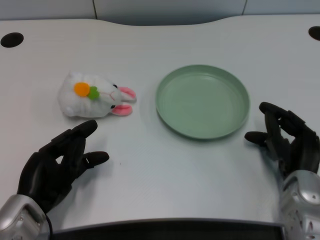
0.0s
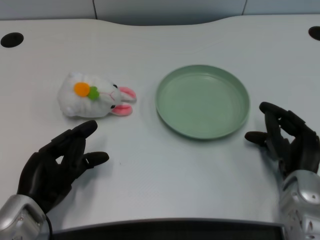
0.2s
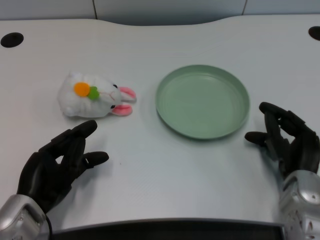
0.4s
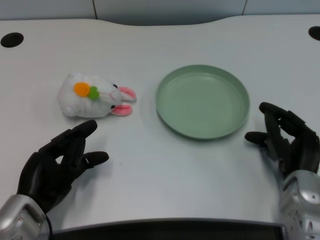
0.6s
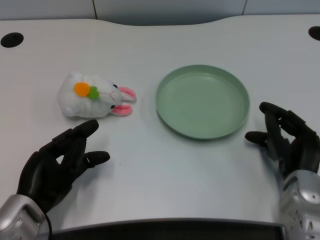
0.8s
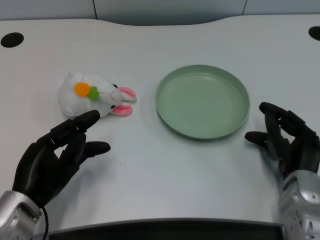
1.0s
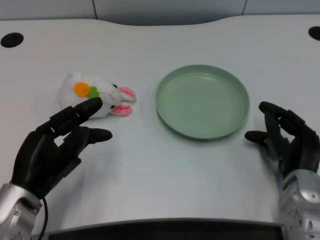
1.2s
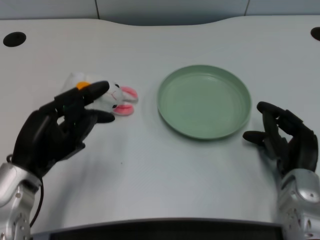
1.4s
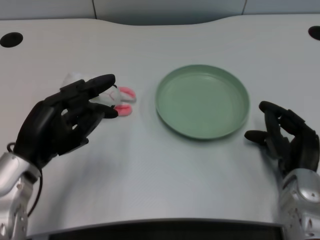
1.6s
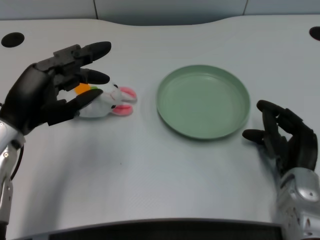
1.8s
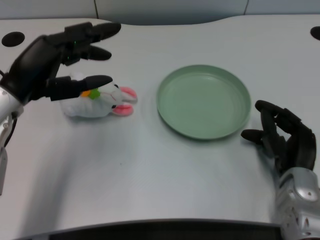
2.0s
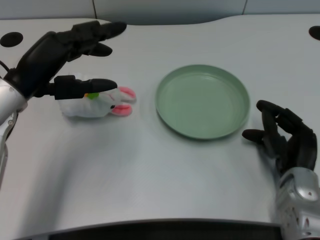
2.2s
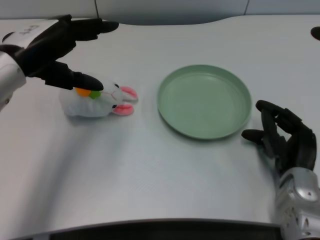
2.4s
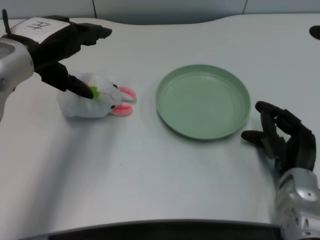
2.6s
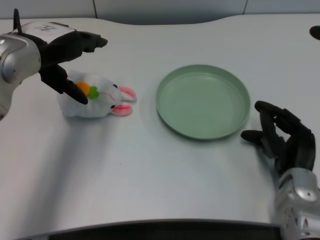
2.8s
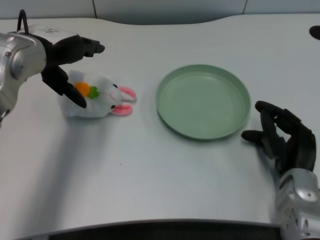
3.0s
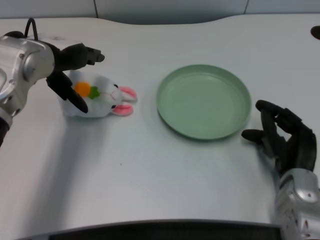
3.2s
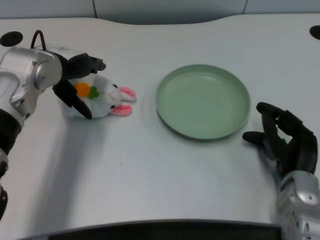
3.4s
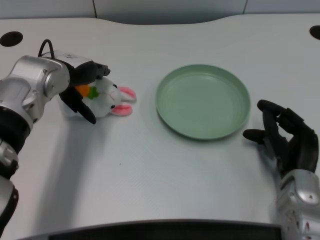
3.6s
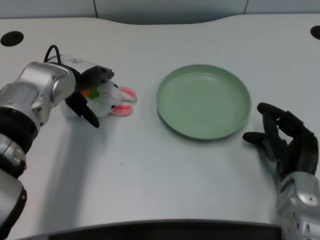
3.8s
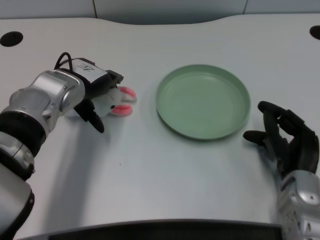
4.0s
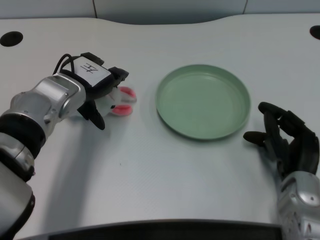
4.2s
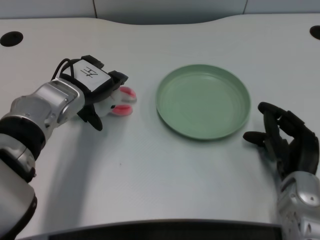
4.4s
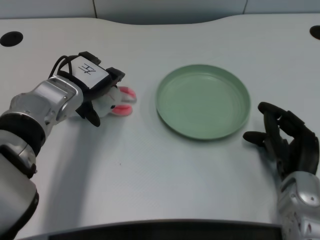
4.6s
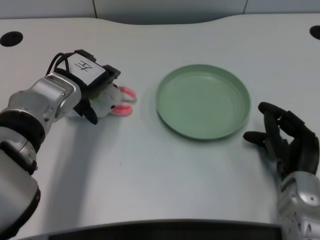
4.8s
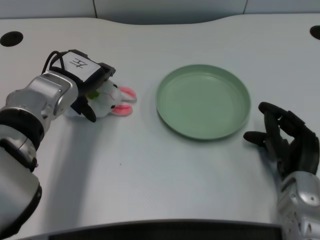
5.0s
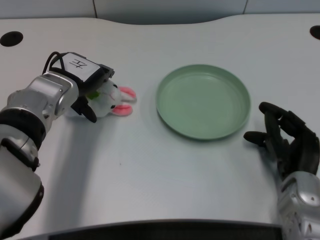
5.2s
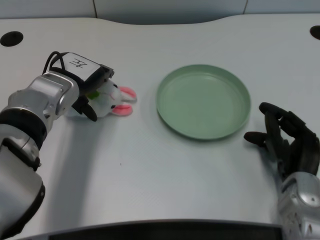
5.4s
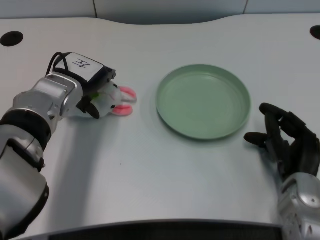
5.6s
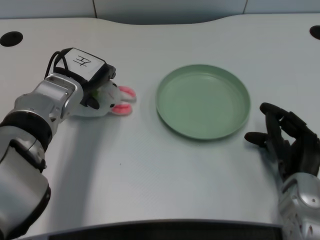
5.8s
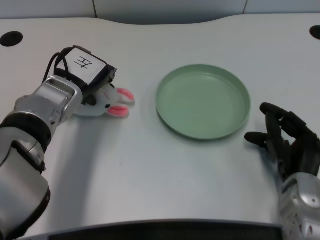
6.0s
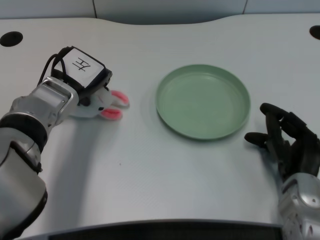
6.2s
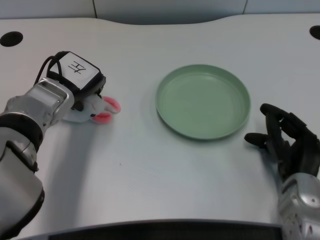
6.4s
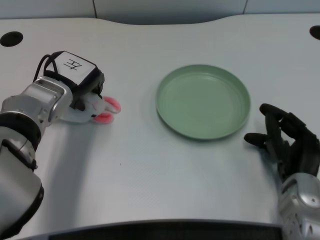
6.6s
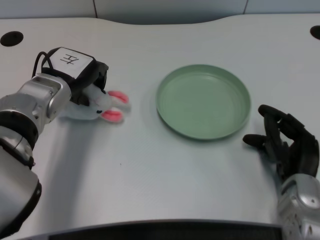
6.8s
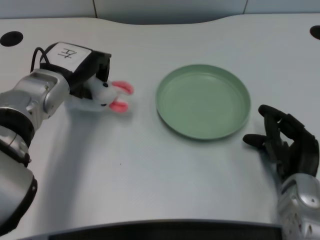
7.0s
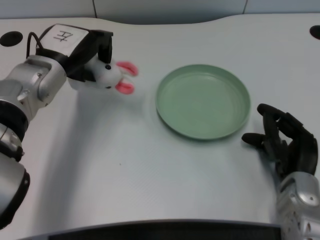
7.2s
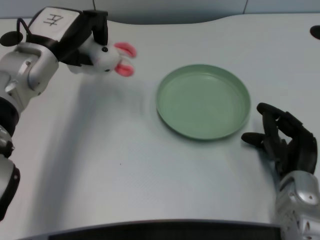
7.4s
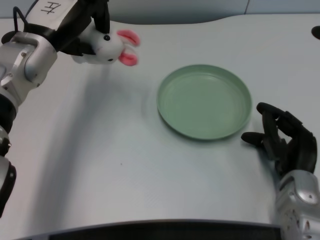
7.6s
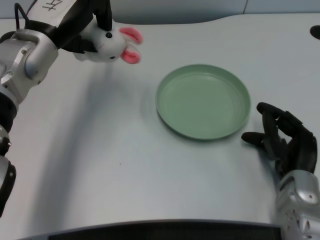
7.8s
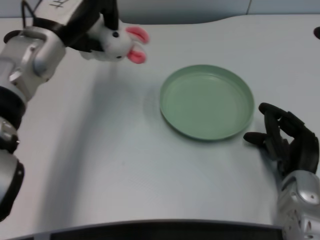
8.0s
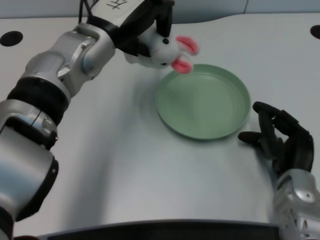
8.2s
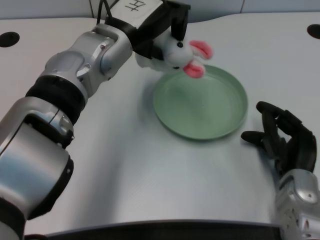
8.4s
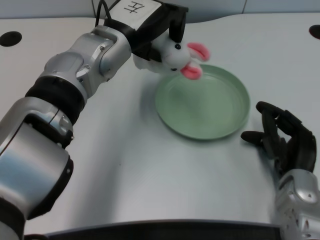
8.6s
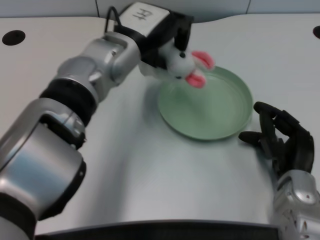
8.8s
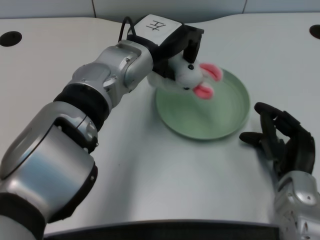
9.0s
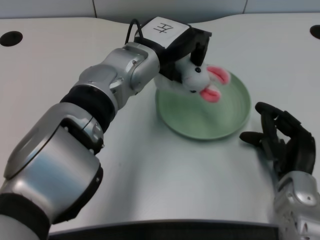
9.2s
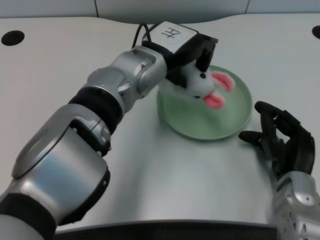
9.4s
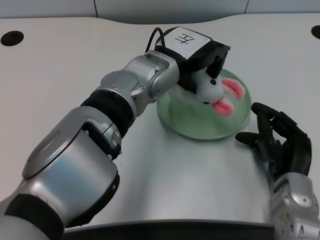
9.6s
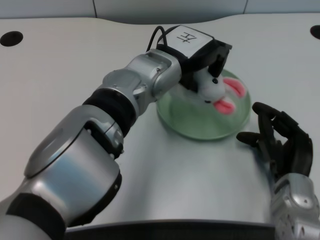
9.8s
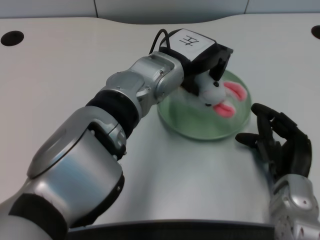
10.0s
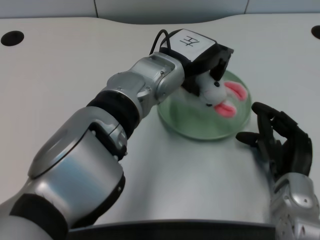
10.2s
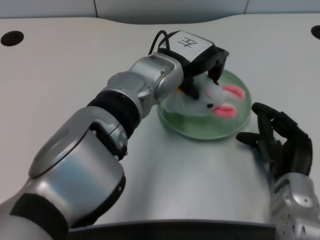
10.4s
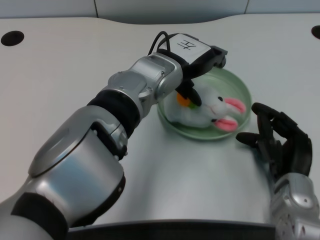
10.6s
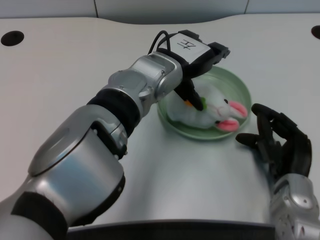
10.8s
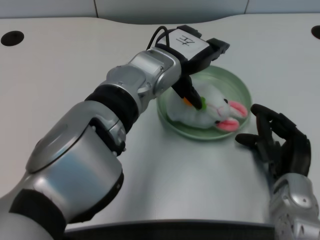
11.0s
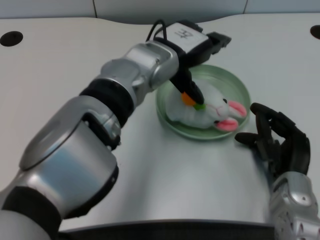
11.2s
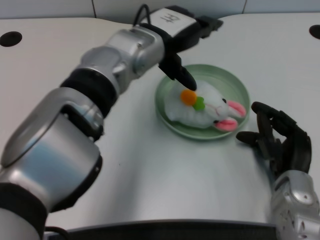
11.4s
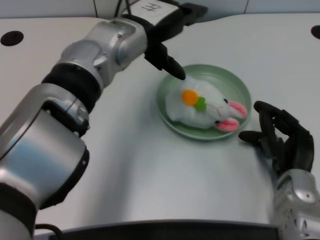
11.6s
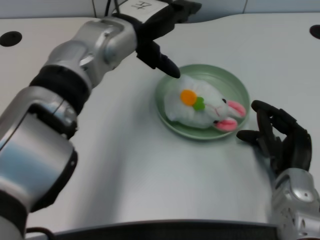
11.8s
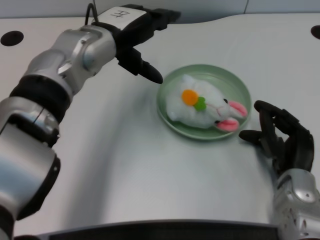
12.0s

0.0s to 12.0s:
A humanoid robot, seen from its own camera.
Task of the whole recording: pick up the rabbit doll from the table and place it on the plate.
Step, 1.0s to 7.0s: Grasp the rabbit doll with the left gripper.
Step, 7.2s to 10.6s: Place the rabbit doll into the plate with the left gripper.
1.6s to 3.0s: The left hand heads upward and forward, covering roughly 15 cm.
3.0s to 4.4s: The left hand shifts about 10 cm downward.
4.4s to 6.0s: The hands stay close to where they were, moving slightly.
6.0s to 7.6s: The left hand goes approximately 5 cm upward.
7.6s to 9.0s: The left hand travels to the right by some 15 cm.
10.4s to 12.0s: The left hand is displaced to the left by roughly 10 cm.

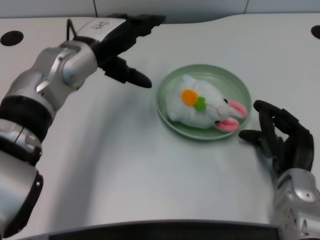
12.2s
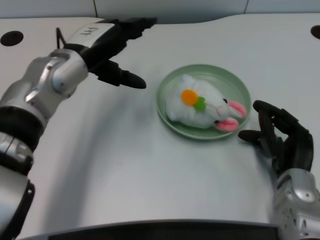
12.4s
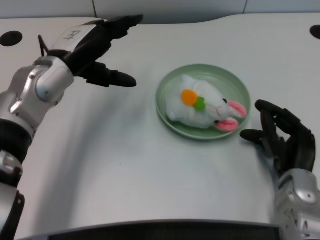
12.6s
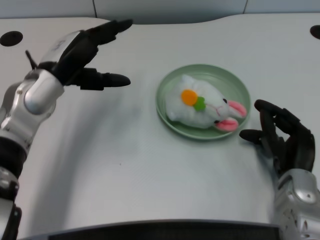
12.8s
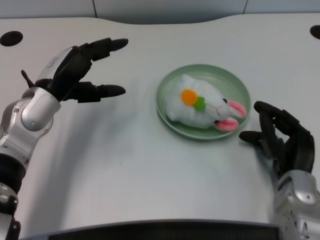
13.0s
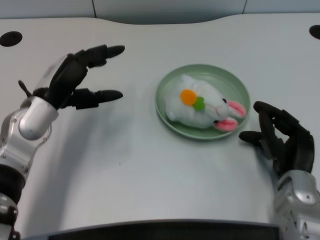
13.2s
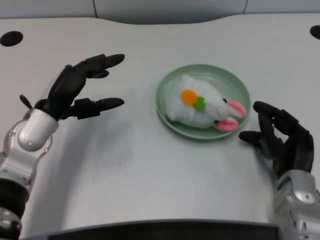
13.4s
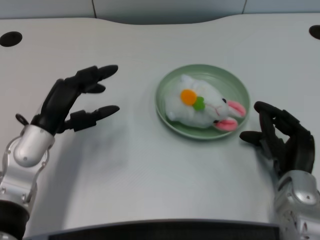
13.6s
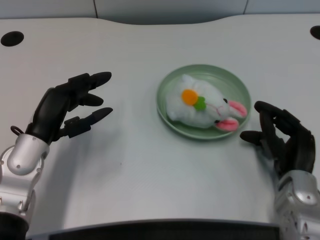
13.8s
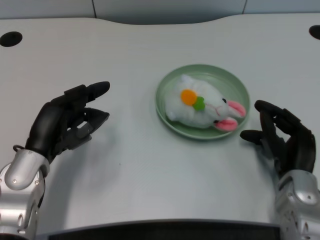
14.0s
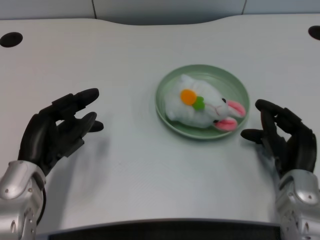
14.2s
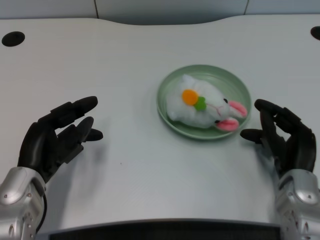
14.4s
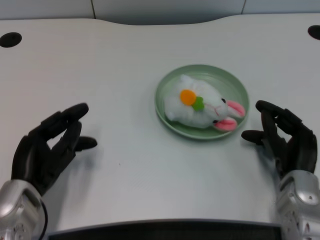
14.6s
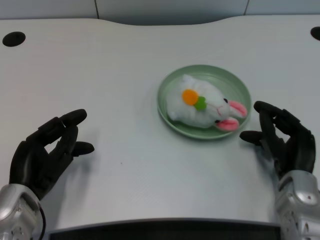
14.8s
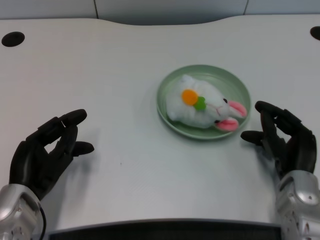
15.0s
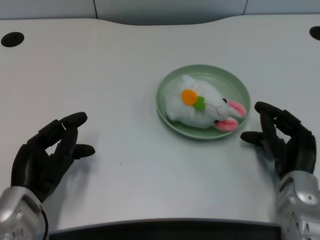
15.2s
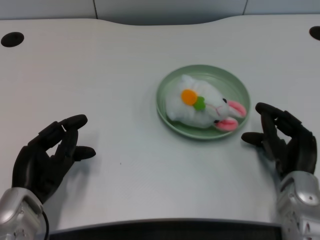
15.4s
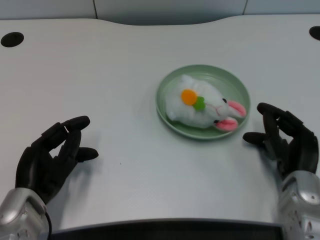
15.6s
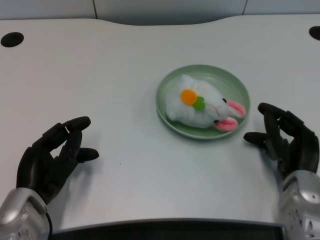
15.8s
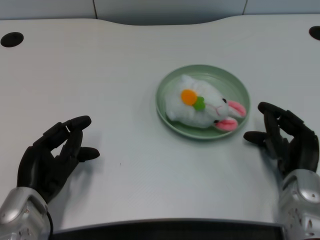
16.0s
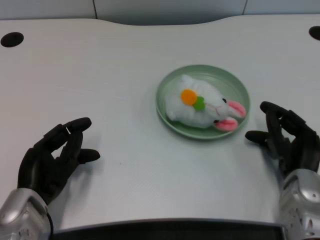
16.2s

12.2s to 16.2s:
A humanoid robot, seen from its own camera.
Task of the whole recording: pick up the rabbit doll from the table and place it on the plate.
12.2s to 13.6s: The left hand goes approximately 15 cm downward, backward and to the left.
13.6s to 14.8s: The left hand heads backward, covering about 5 cm.
14.8s to 16.2s: The two hands keep their place.

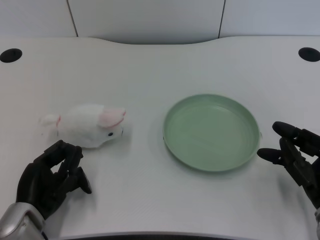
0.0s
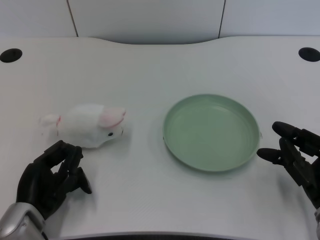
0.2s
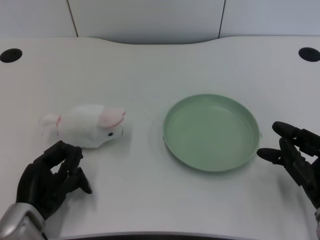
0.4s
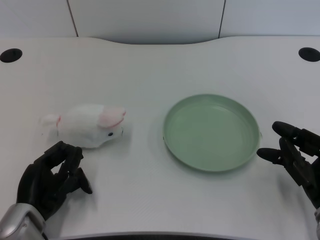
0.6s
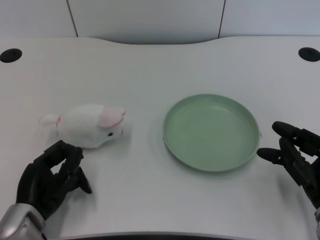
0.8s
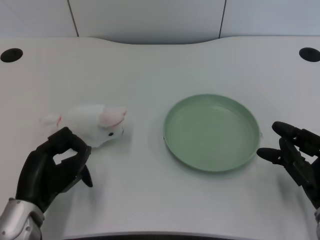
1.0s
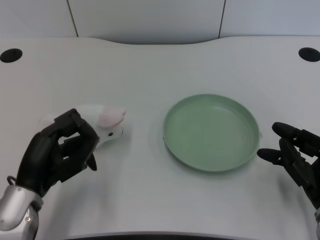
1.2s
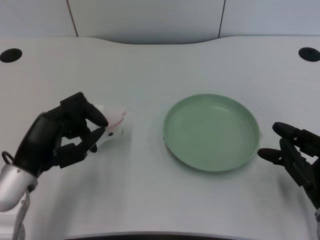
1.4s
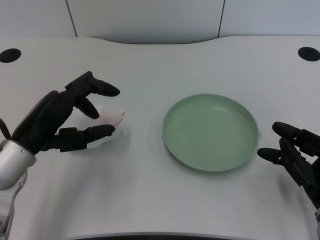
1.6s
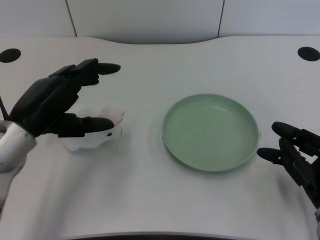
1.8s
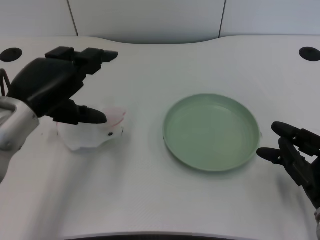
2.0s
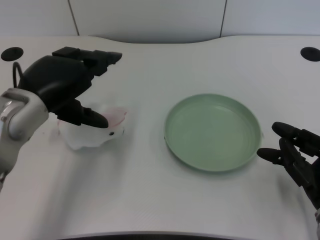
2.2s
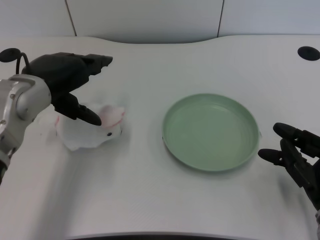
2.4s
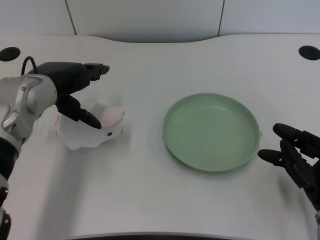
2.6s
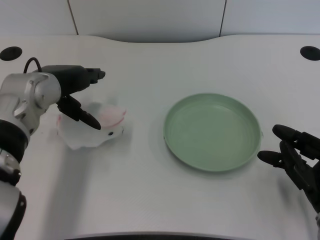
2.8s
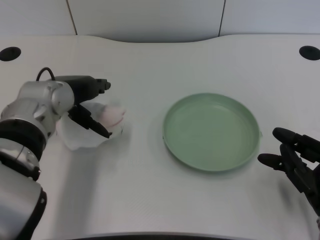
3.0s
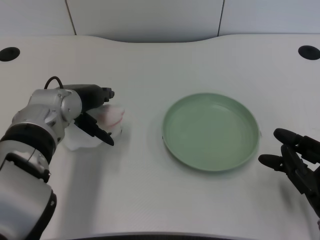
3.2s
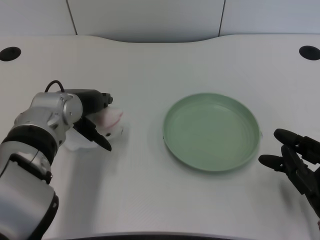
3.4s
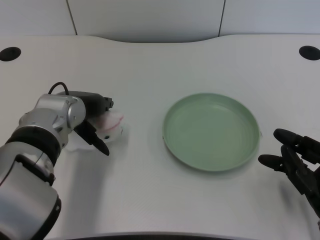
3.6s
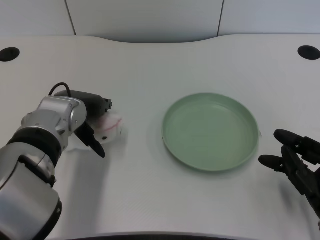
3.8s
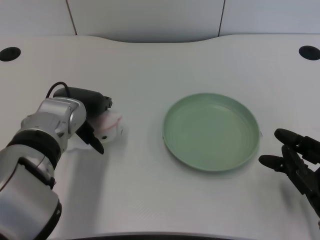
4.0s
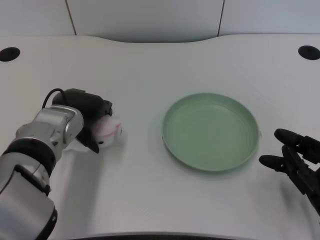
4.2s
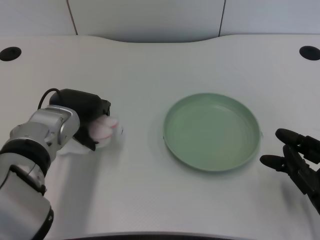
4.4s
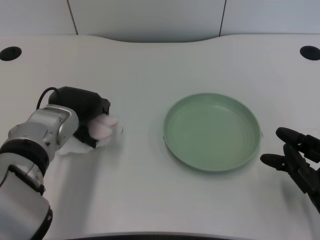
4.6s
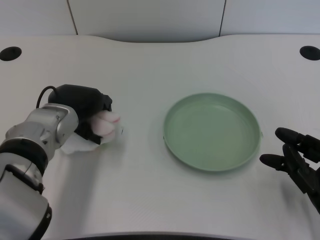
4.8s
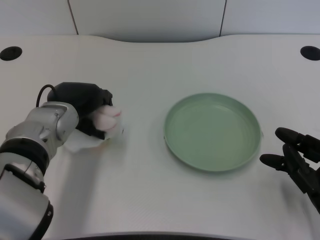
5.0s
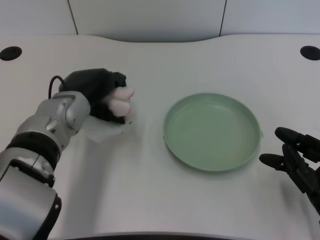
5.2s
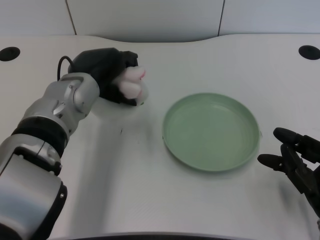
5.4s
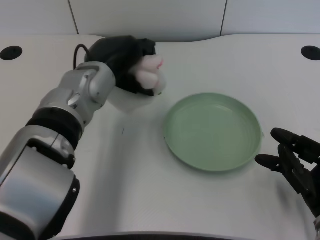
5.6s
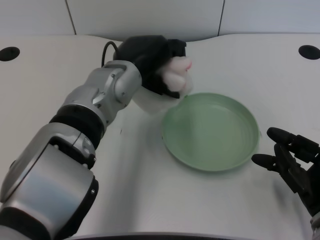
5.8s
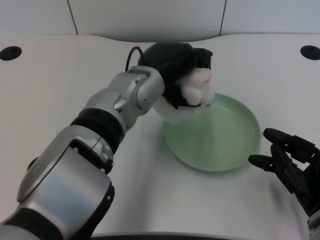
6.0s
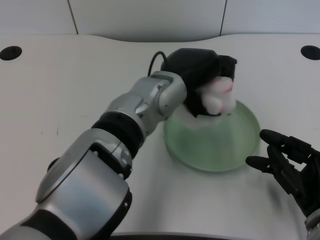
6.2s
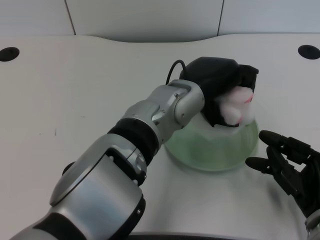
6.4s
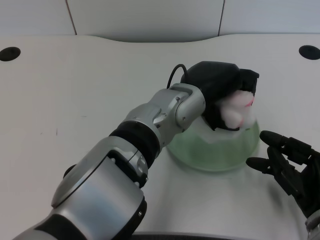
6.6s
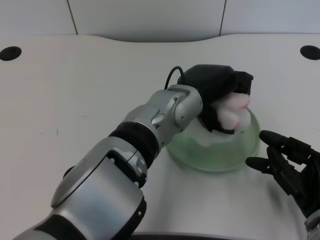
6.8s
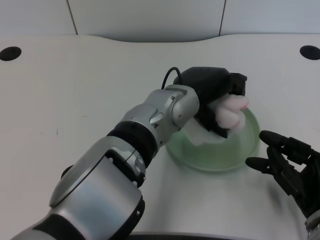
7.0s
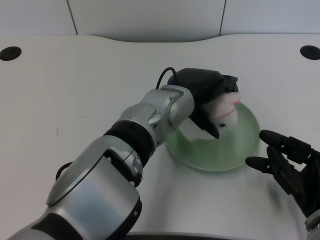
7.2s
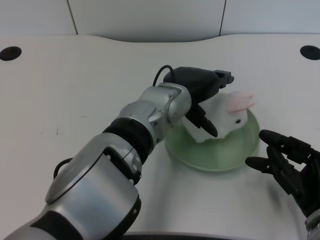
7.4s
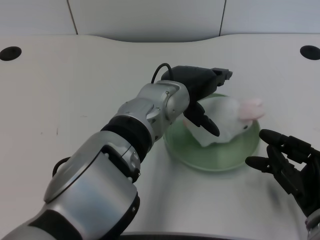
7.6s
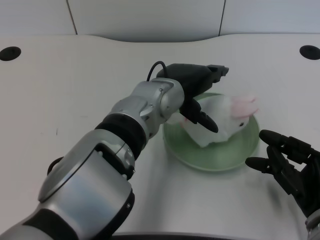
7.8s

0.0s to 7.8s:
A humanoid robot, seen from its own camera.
Task of the whole recording: pick up the rabbit doll from the table and place it on the plate.
Step, 1.0s to 5.0s: Grasp the rabbit doll with the left gripper.
Step, 5.2s to 7.4s: Place the rabbit doll into the plate with the left gripper.
1.6s to 3.2s: The left hand moves forward and to the right, approximately 10 cm.
3.2s to 4.6s: The hands stay close to where they were, moving slightly.
4.6s to 6.2s: The left hand travels to the right by some 15 cm.
6.2s to 7.8s: There are only small adjustments of the hands.
